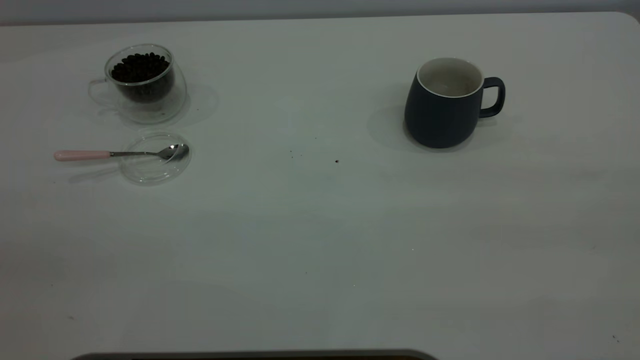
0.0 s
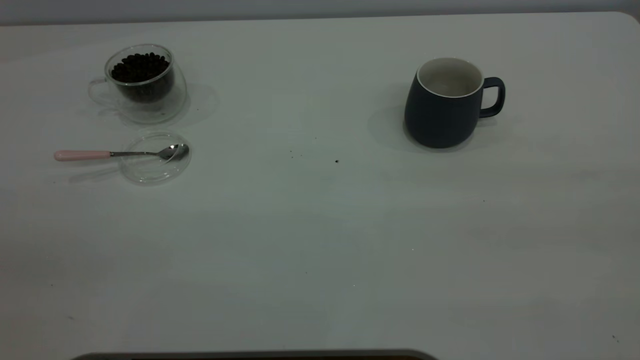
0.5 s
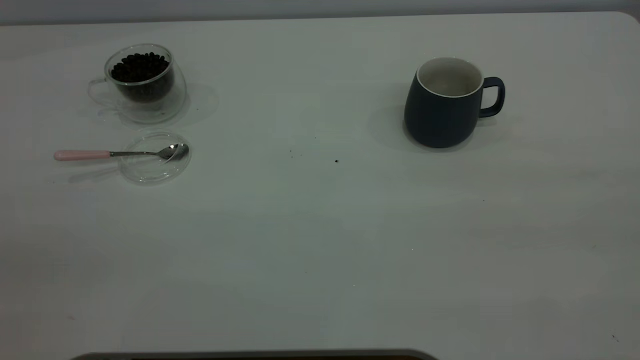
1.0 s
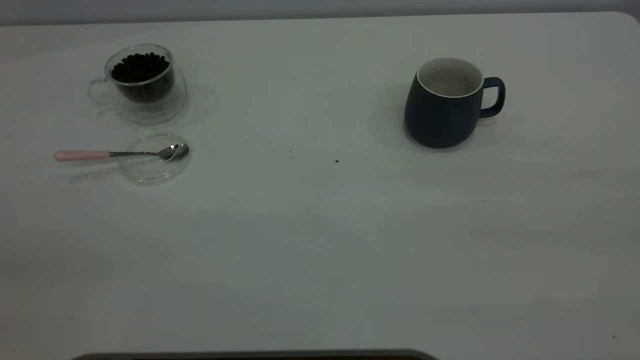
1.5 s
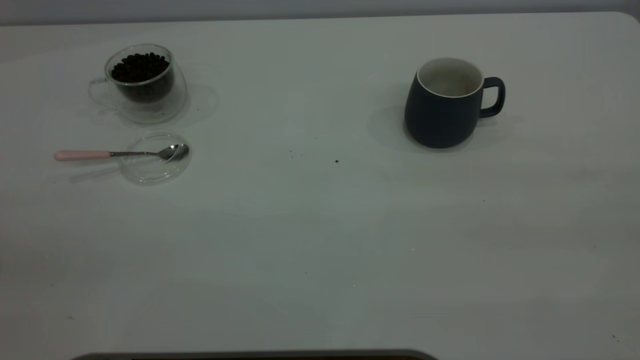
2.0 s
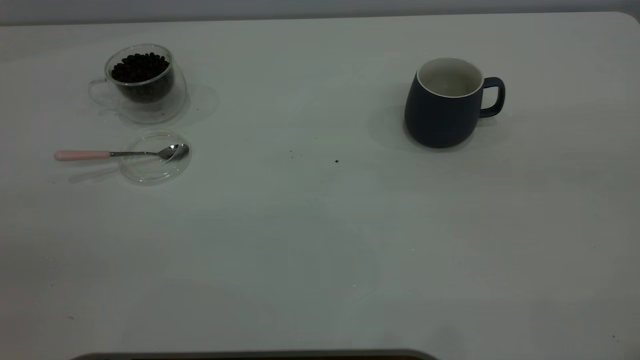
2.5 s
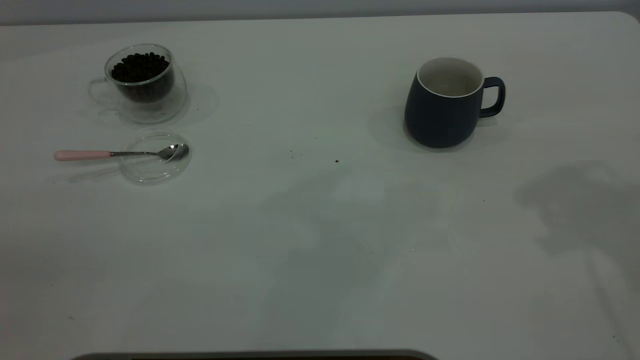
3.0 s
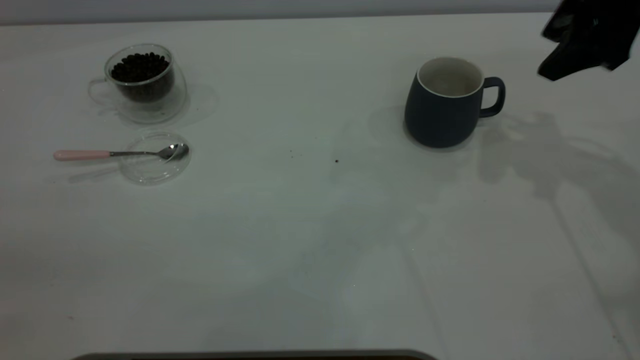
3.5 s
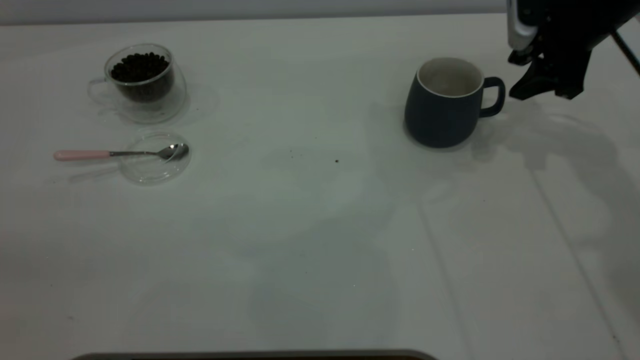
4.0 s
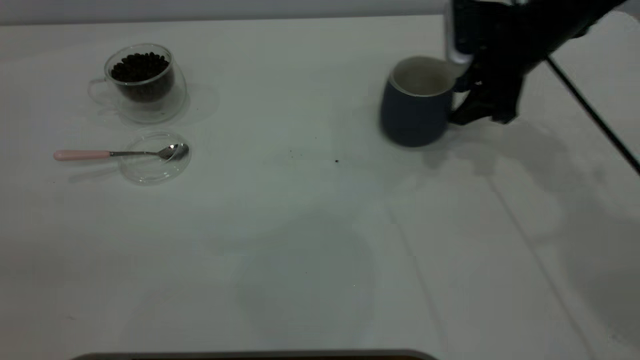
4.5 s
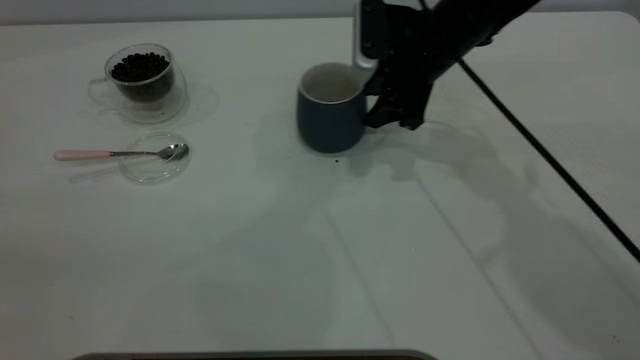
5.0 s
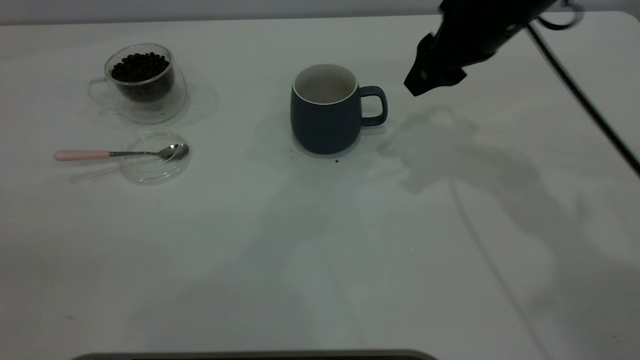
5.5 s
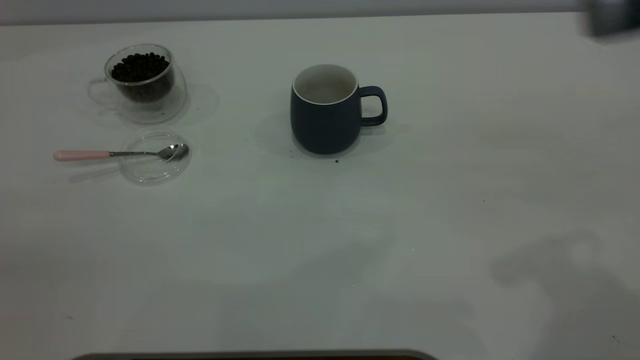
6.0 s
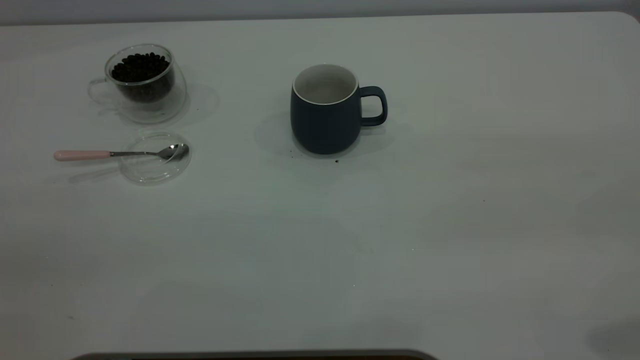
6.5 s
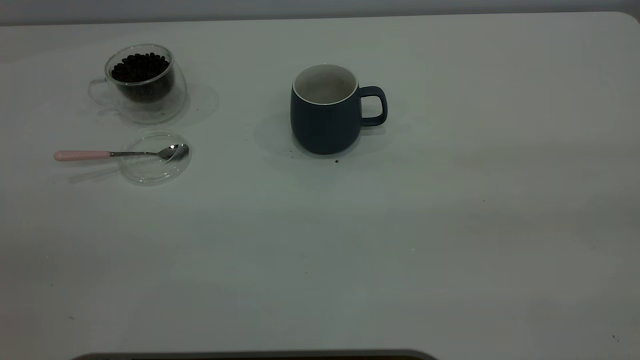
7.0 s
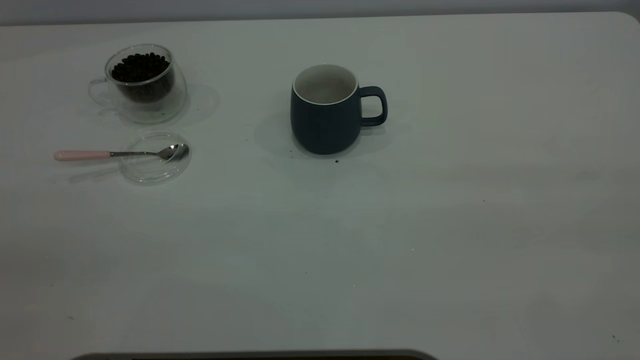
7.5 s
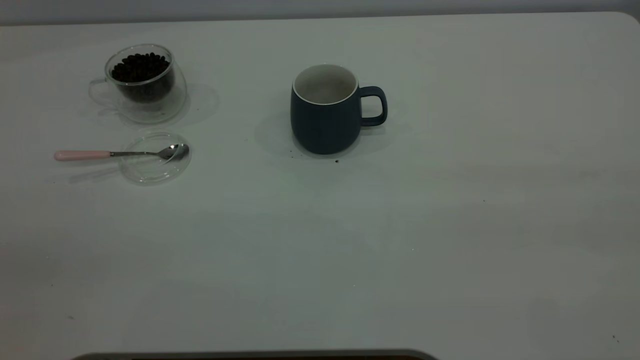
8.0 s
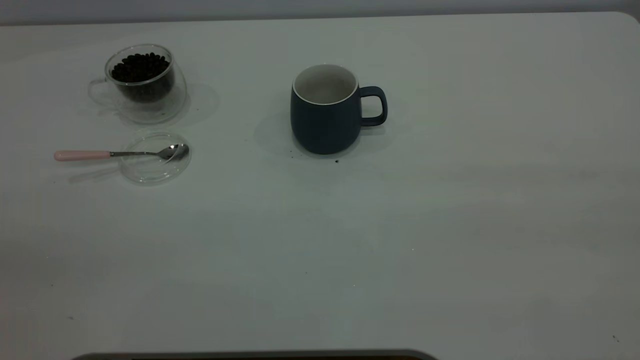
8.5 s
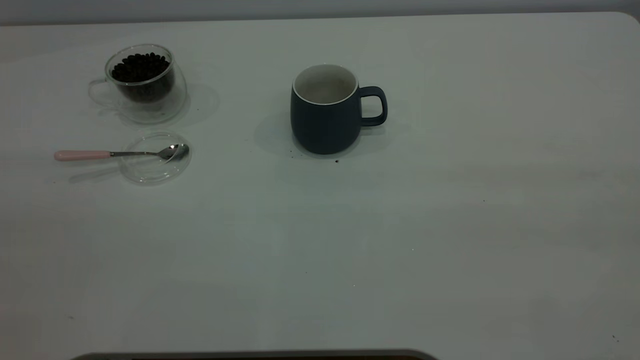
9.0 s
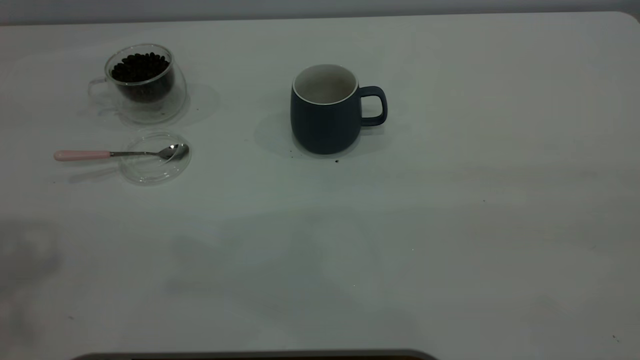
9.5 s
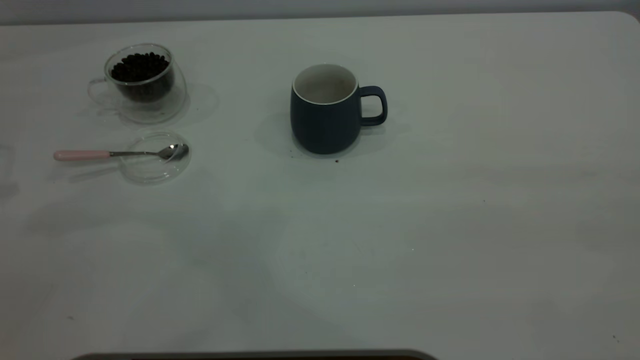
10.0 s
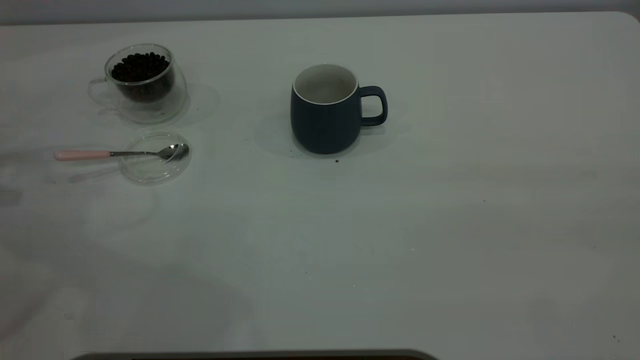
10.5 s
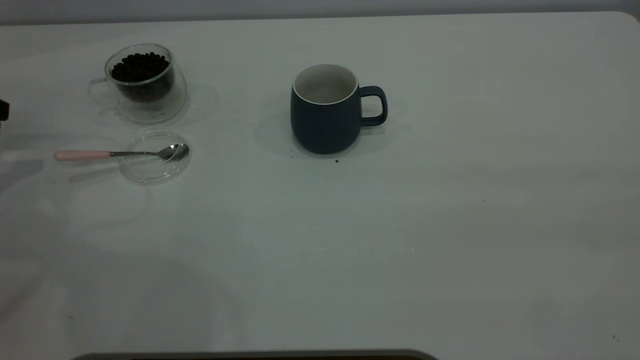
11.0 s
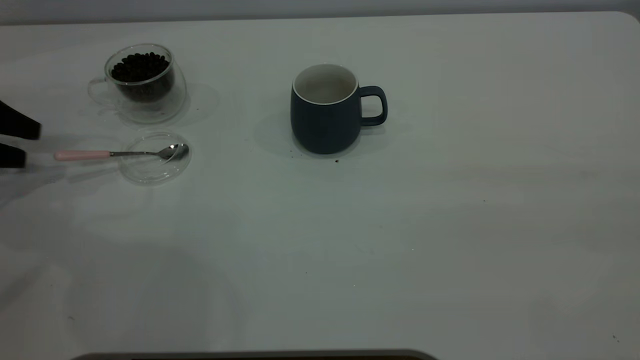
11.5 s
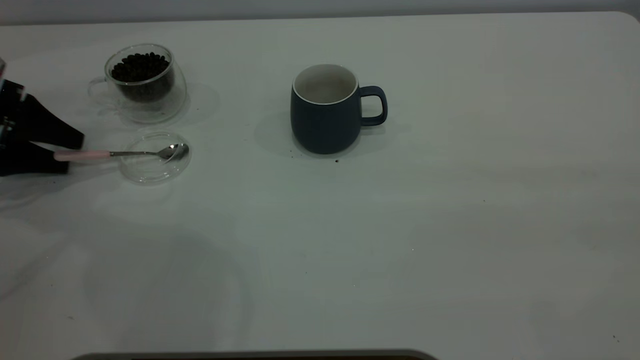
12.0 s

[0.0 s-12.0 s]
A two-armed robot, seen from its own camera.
Task of the whole recording: the right gripper place the grey cup in the center of the table, the left gripper take the pink spoon from the cup lid and scoop out the coffee beans from the coffee cup and put them into the grey cup, the left gripper put the spoon back into the cup lid.
Step, 0.0 to 5.5 s: Move the cup to the center of view.
0.0 to 2.0 s: The two grippers keep their place.
2.0 to 4.0 s: The right gripper goes some 50 cm forward and downward, and opens its fingers.
4.0 to 6.0 s: The right gripper is displaced backward and upward by roughly 30 cm, and closes up.
6.0 to 8.0 s: The right gripper moves backward, upward and to the right, approximately 20 cm.
10.0 to 12.0 s: The left gripper moves downward, about 20 cm.

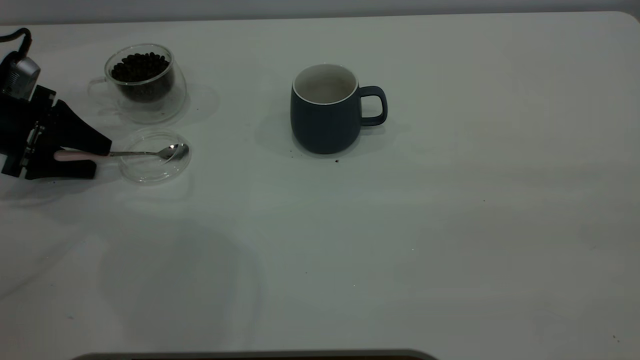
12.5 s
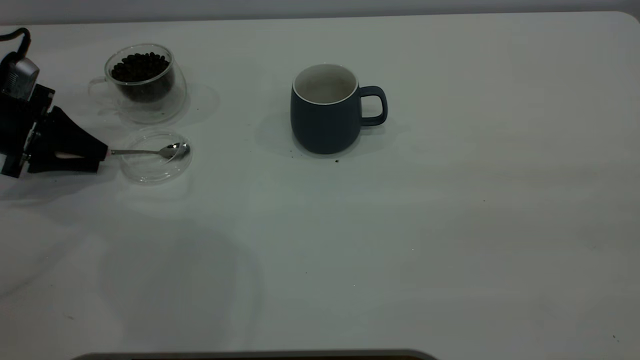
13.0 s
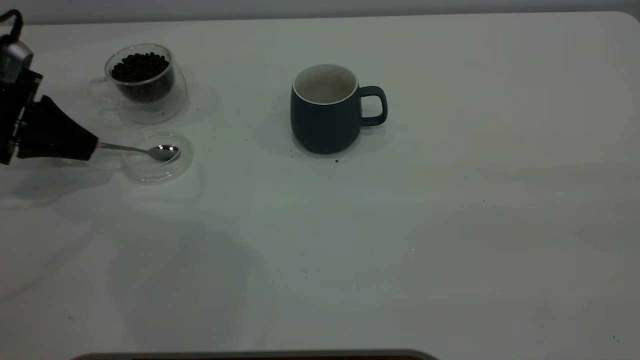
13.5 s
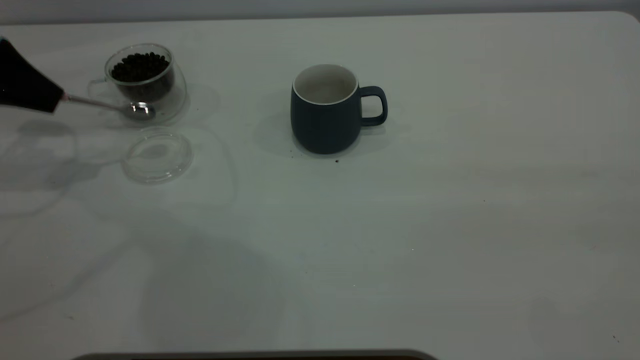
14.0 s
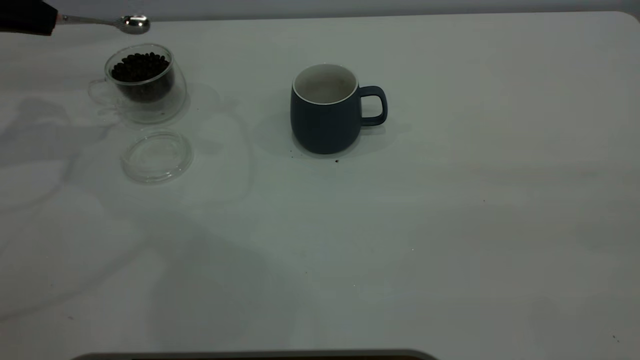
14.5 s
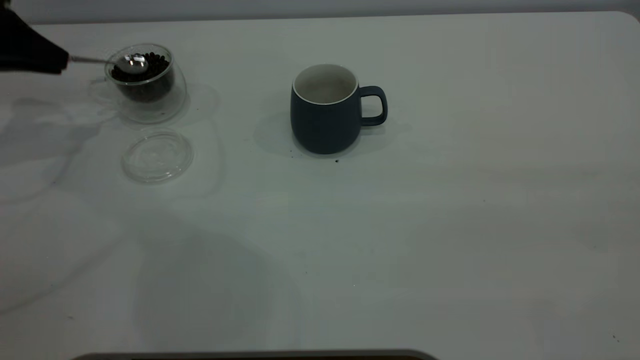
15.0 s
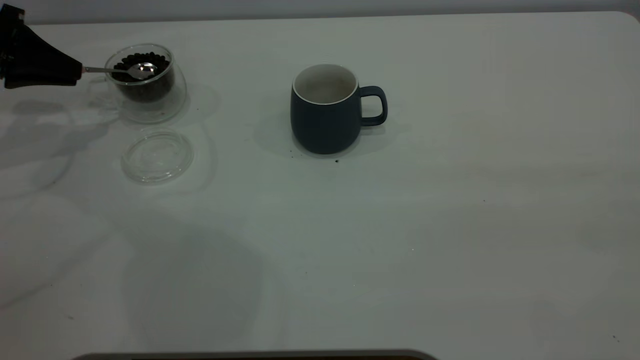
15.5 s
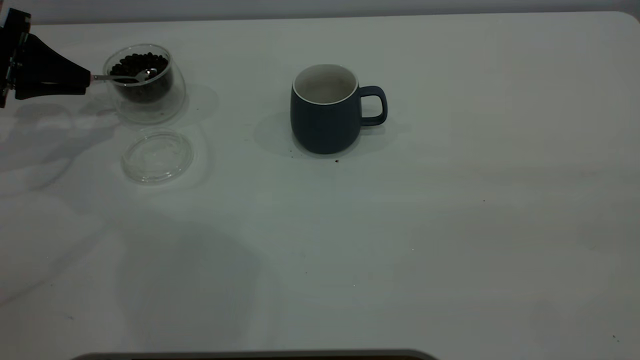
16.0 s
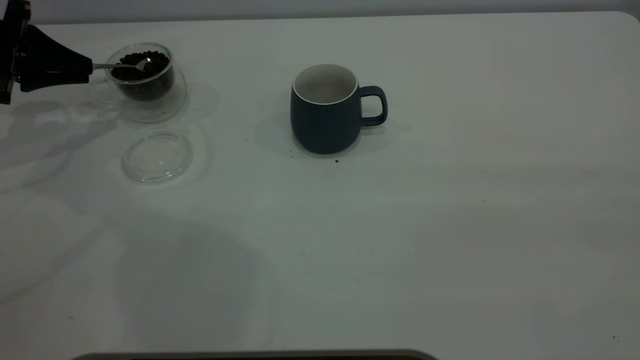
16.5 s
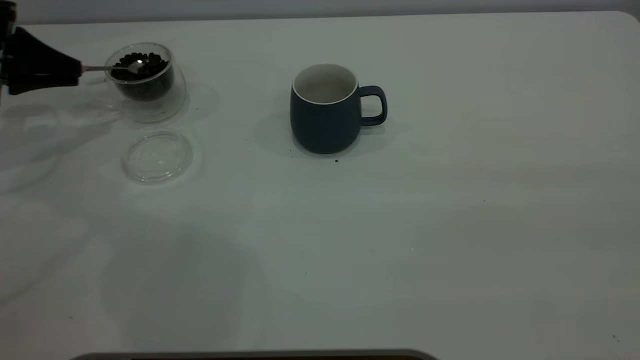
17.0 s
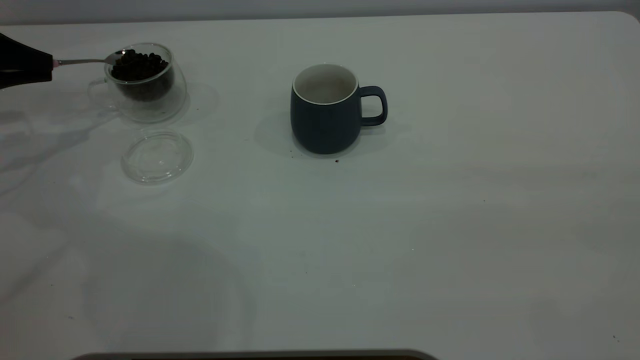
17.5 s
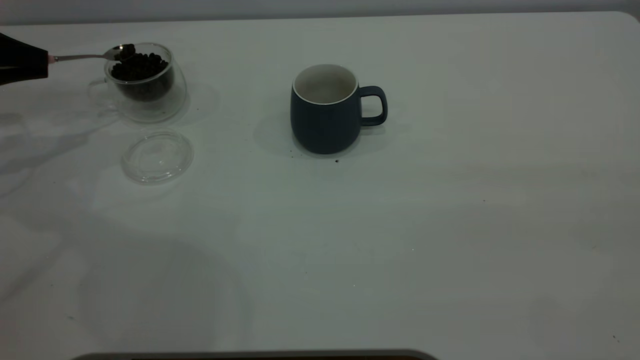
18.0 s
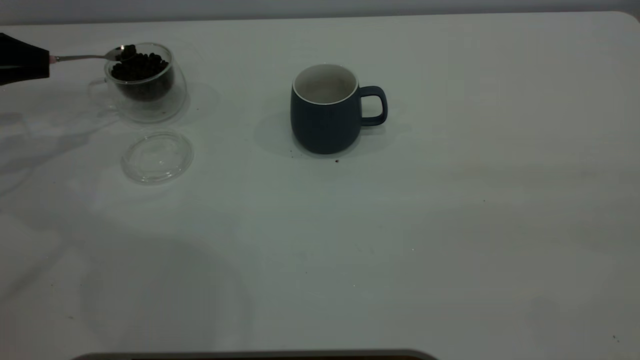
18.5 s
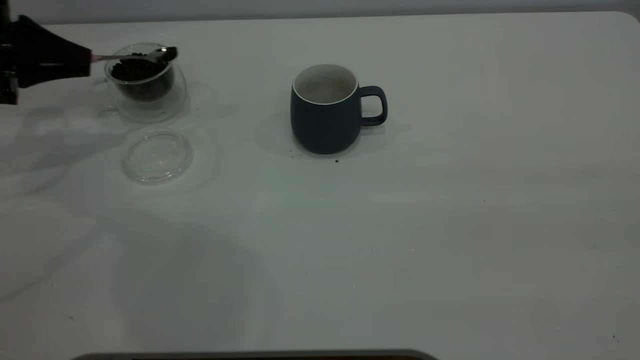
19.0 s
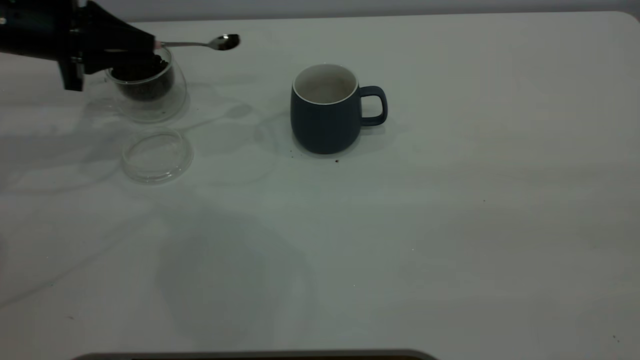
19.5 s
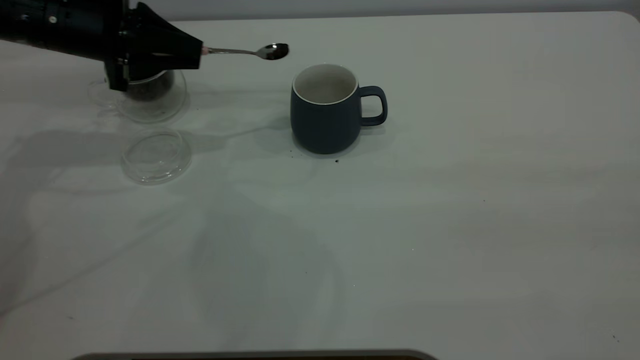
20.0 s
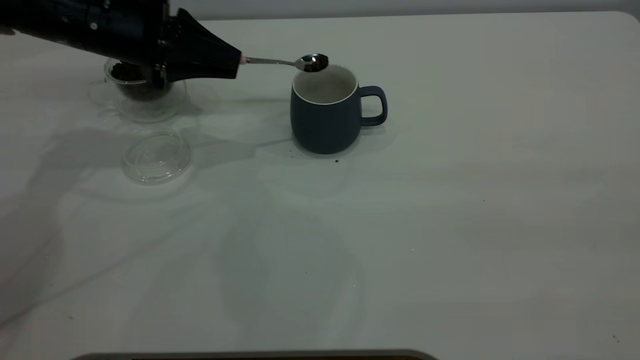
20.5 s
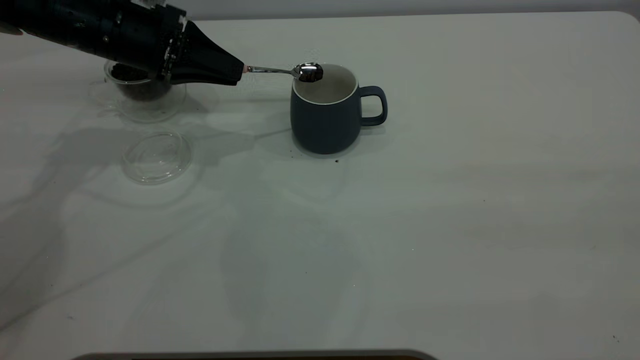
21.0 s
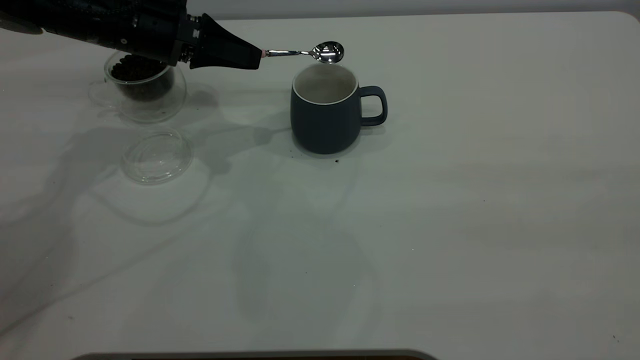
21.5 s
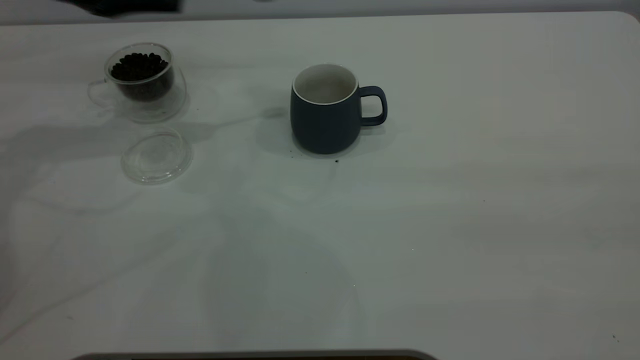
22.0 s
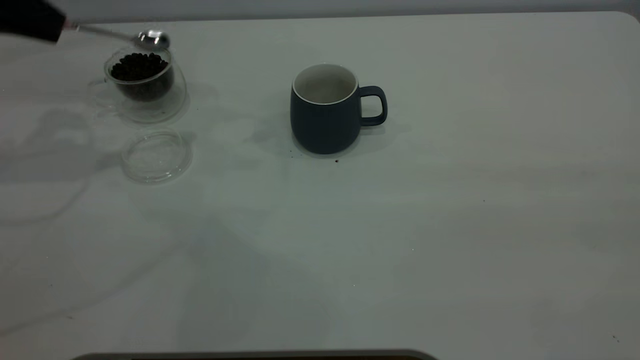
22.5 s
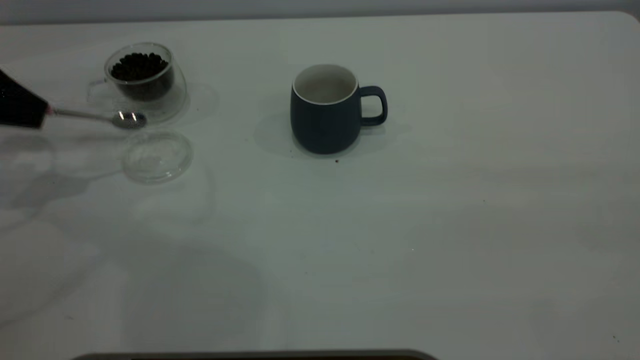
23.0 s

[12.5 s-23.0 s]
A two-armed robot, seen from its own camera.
Task of the whole recording: the right gripper place the grey cup in the center of the table, the left gripper take the pink spoon from the cup lid and scoop out the coffee beans from the coffee cup and put them into the grey cup, the left gripper put the spoon back into the cup lid.
Step, 14.5 to 21.5 s: Scoop a spoonful of beans into the cup.
12.5 to 14.5 s: The left gripper travels upward by roughly 15 cm, and closes up.
14.5 to 16.5 s: The left gripper moves downward, approximately 10 cm.
16.5 to 19.0 s: The grippers stay close to where they were, moving slightly.
19.0 to 21.0 s: The left gripper shifts approximately 15 cm to the right.
21.0 to 23.0 s: The left gripper shifts about 20 cm to the left.
